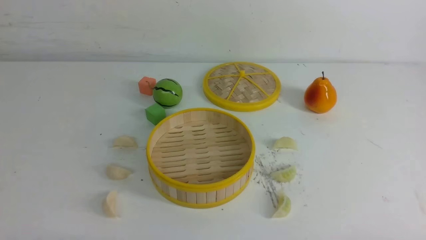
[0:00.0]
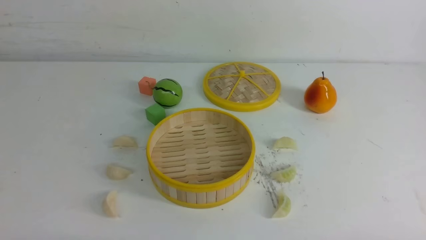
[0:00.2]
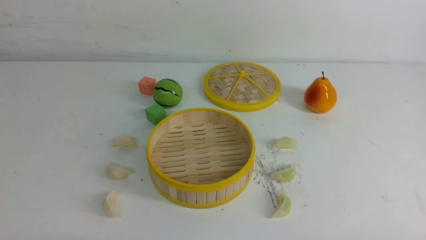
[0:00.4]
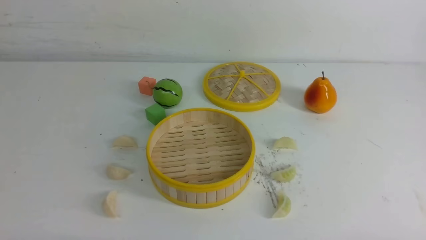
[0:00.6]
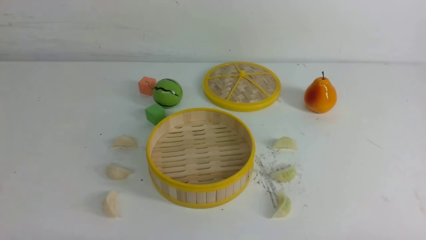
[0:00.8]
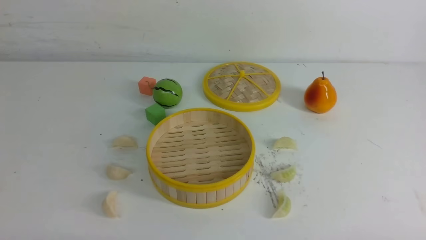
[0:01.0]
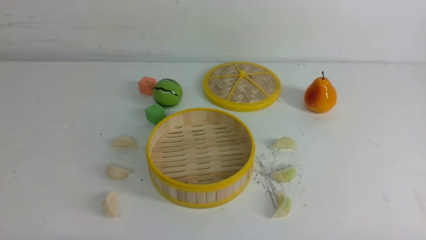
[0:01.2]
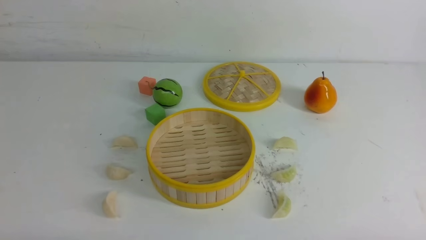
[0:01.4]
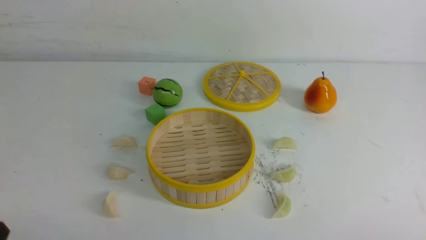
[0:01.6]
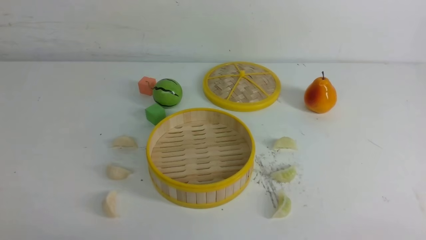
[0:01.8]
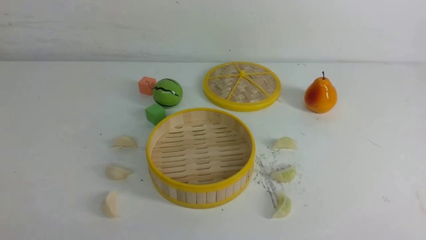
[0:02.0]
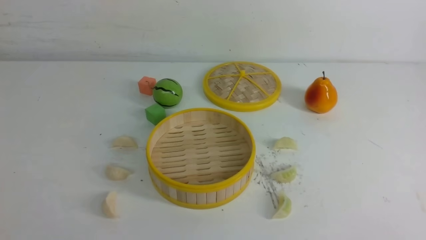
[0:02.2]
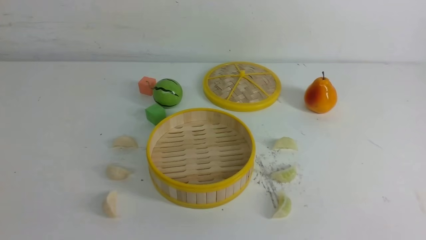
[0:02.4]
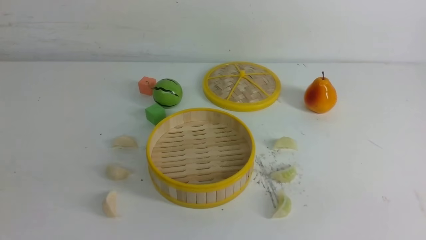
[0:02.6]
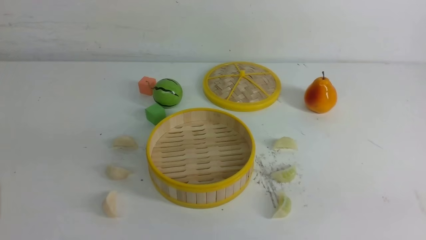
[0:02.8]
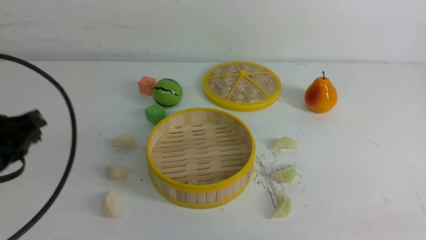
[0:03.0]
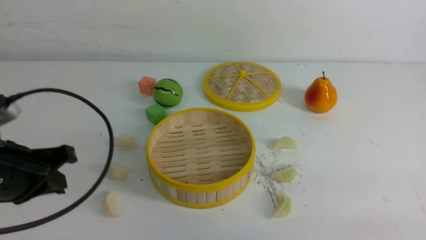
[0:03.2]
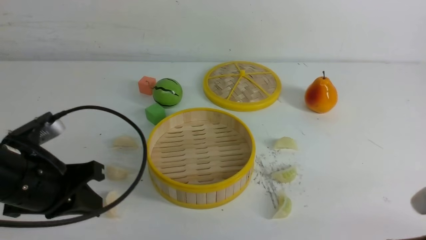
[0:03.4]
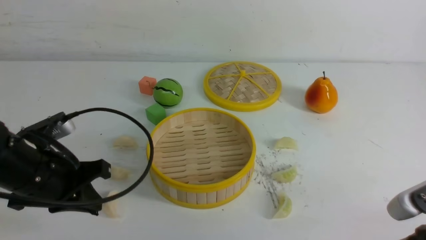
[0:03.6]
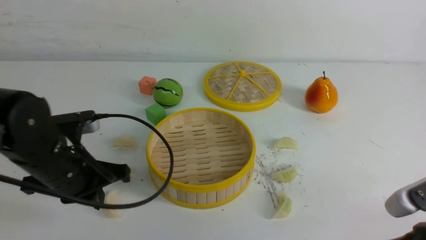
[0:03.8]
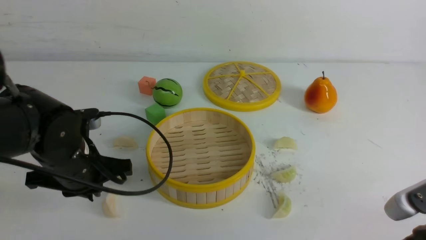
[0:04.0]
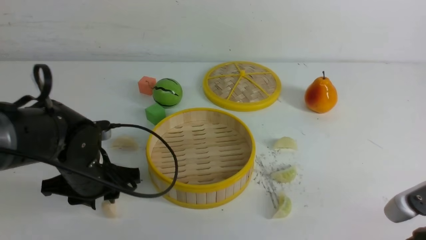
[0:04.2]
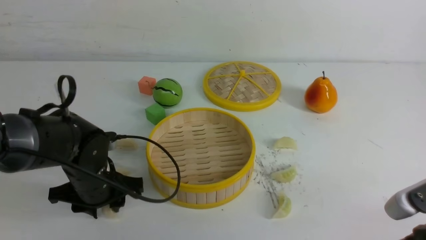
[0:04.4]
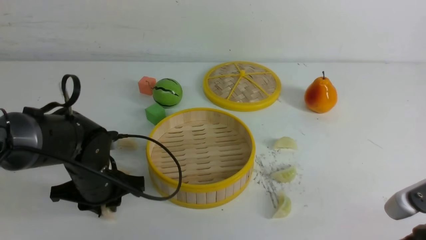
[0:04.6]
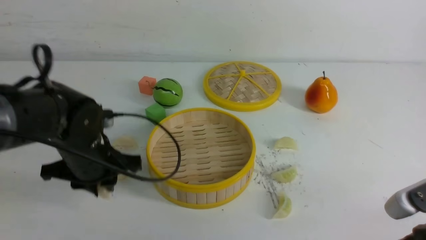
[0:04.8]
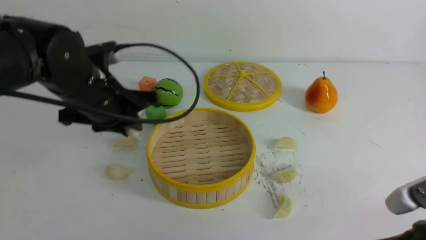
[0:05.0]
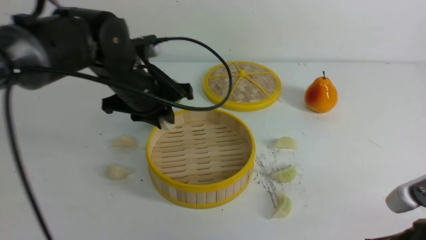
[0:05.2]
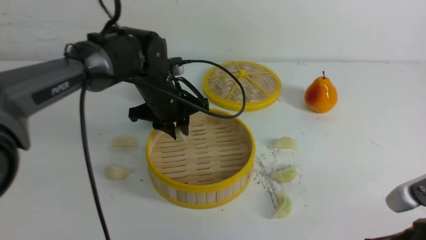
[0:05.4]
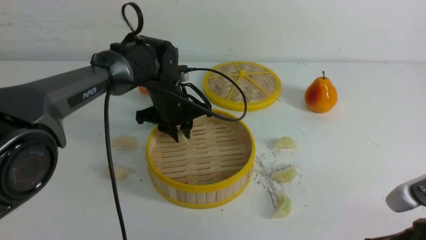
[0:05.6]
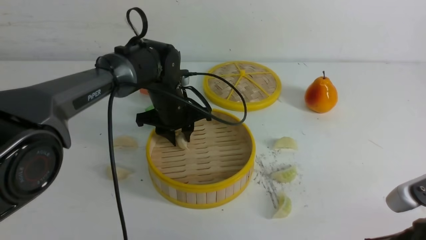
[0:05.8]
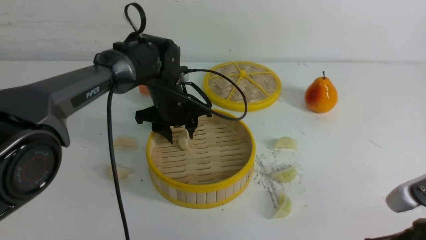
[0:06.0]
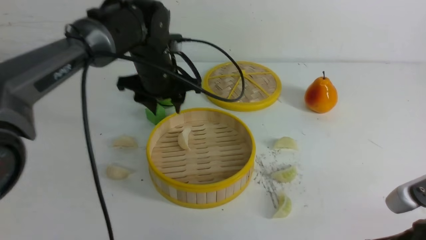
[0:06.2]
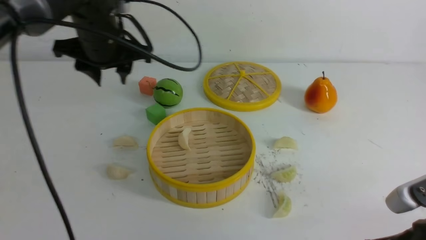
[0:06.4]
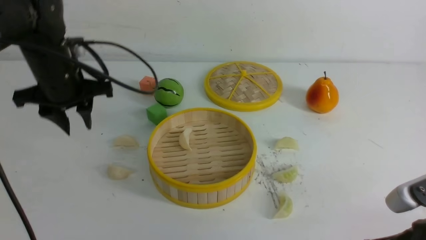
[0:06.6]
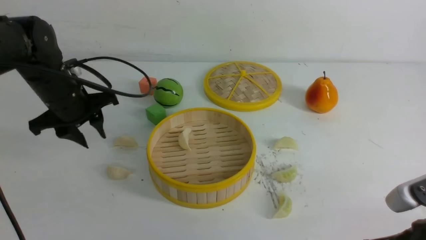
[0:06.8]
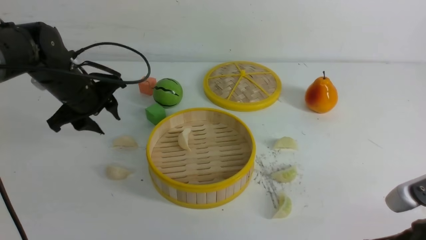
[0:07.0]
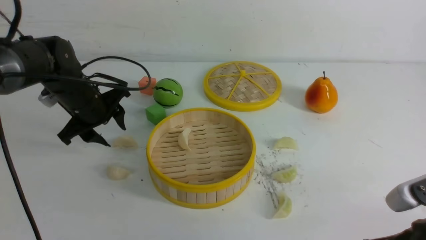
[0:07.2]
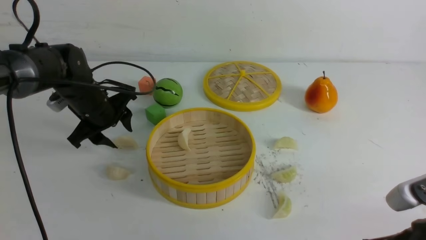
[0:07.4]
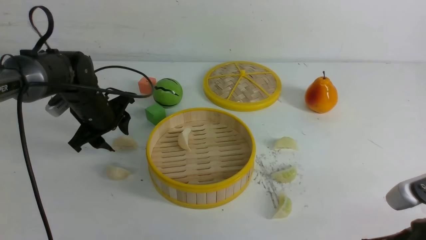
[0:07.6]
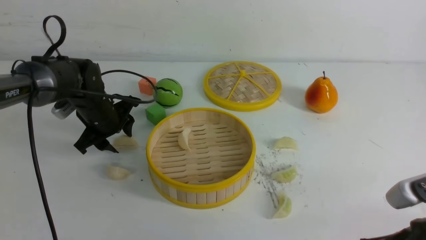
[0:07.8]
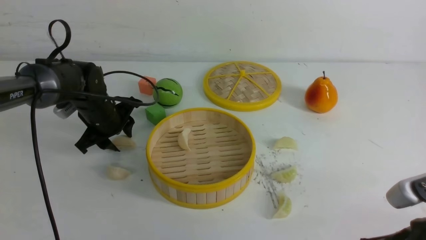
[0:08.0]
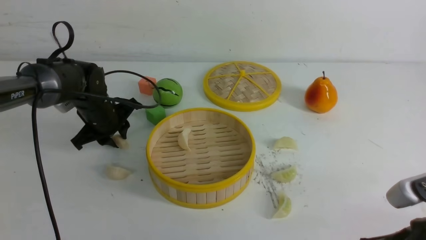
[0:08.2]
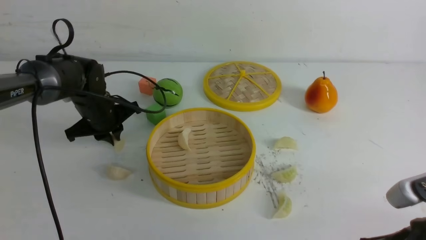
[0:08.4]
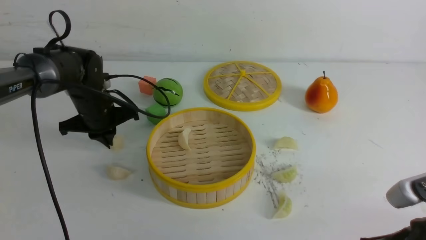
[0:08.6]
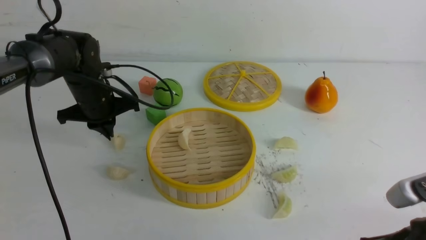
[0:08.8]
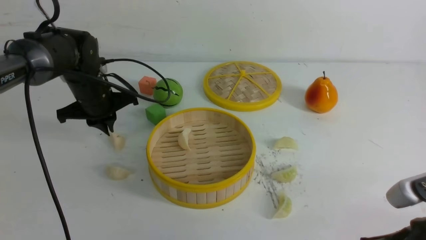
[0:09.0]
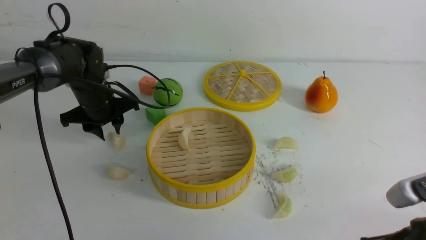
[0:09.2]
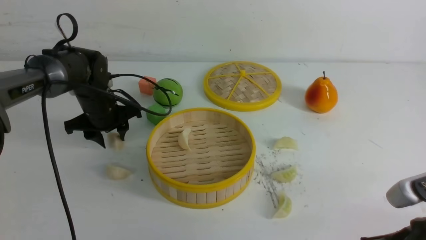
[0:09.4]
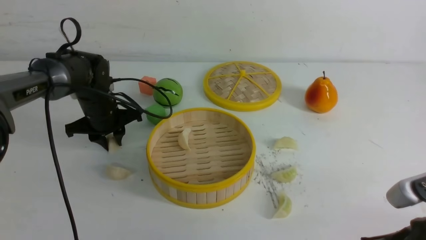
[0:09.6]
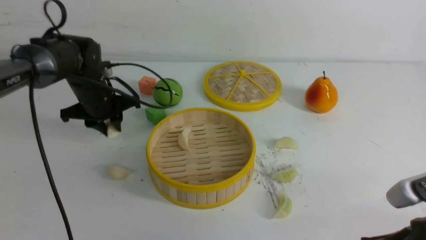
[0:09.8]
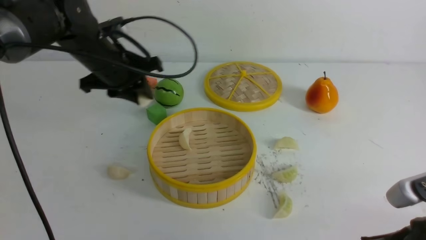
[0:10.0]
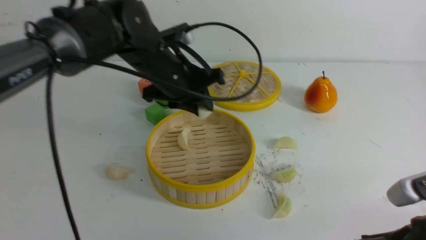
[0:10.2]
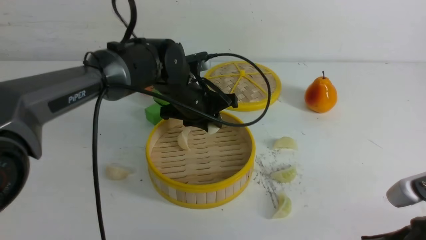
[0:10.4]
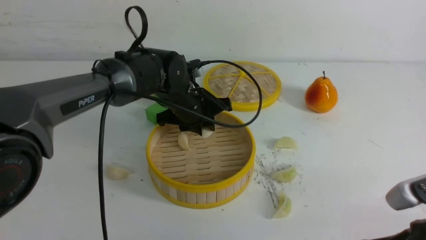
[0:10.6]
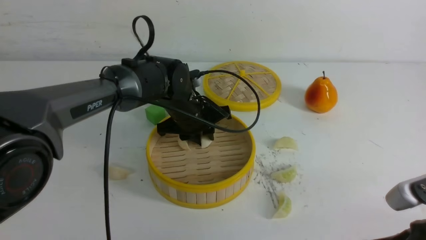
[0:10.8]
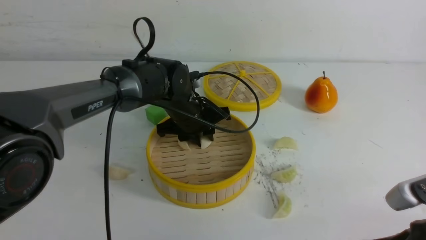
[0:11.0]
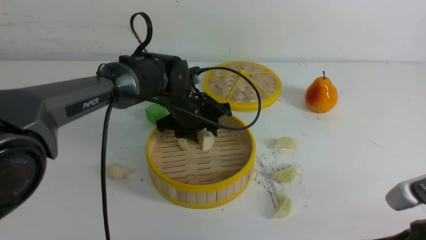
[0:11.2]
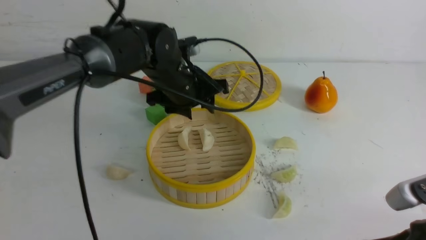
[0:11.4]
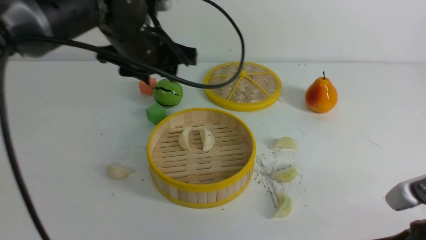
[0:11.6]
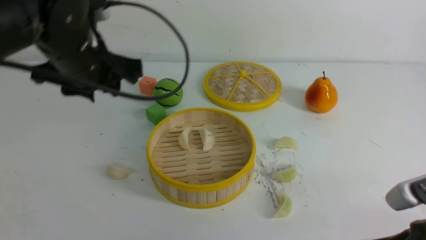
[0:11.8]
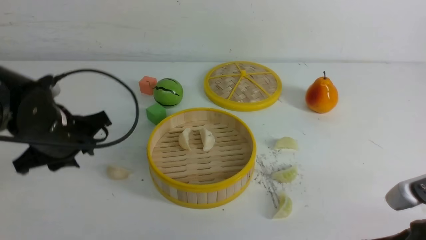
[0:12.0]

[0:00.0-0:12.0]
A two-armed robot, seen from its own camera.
Task of the whole recording: put the dumplings into the steamer on the white table.
Step, 0:00.0 to 0:04.6: use the left arm to grab a dumpling.
Step, 0:04.8 to 0:05.8: use the left arm to put the dumpling into the steamer.
Step, 0:06.0 to 0:09.6: use the left arm to grab a dumpling.
Step, 0:09.8 to 0:11.0: use the left arm to put the dumpling into the steamer.
0:01.6 to 0:03.0: The left gripper goes roughly 15 cm forward and upward, and closes.
0:03.0 to 0:04.4: The right gripper travels to the left by about 5 cm, while the left gripper moves downward, forward and to the right, about 20 cm, and opens its fingers.
0:04.4 to 0:06.0: The left gripper goes about 20 cm forward, to the right and upward.
0:06.0 to 0:07.6: The left gripper moves to the left, approximately 15 cm.
0:07.6 to 0:09.0: The left gripper closes.
0:09.0 to 0:10.4: The left gripper goes roughly 15 cm to the right.
0:10.4 to 0:12.0: The left gripper moves to the left and backward, roughly 20 cm.

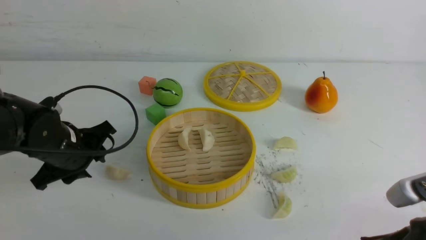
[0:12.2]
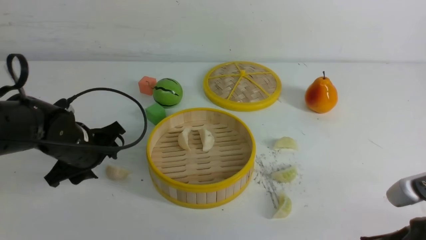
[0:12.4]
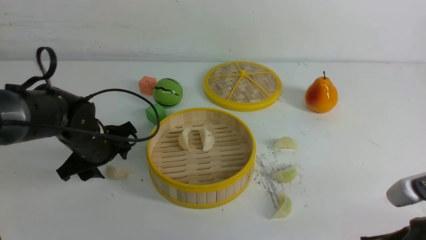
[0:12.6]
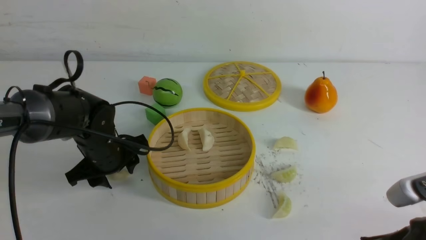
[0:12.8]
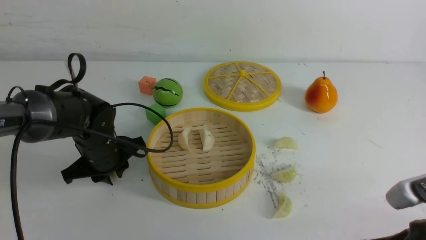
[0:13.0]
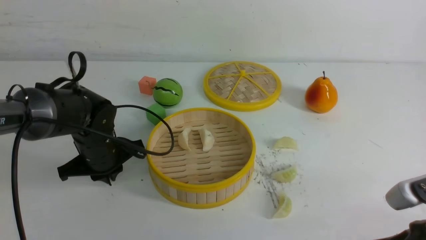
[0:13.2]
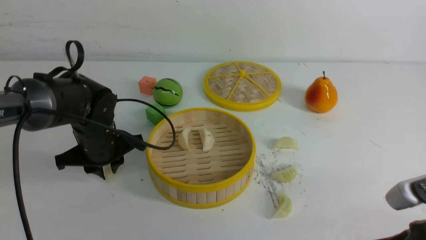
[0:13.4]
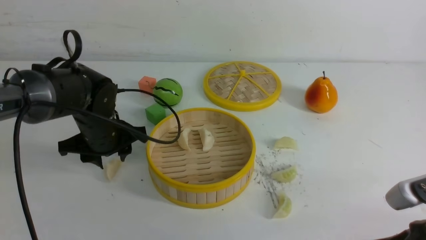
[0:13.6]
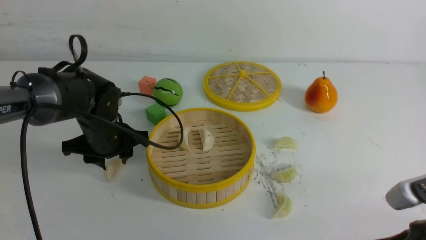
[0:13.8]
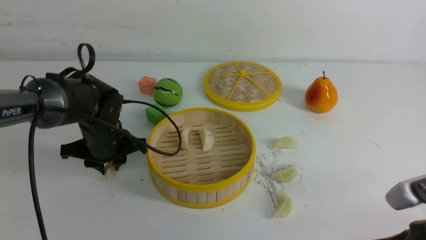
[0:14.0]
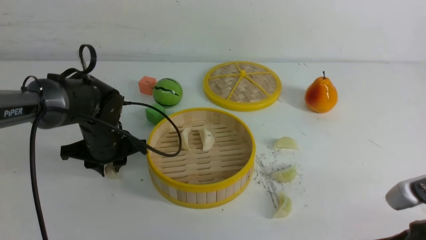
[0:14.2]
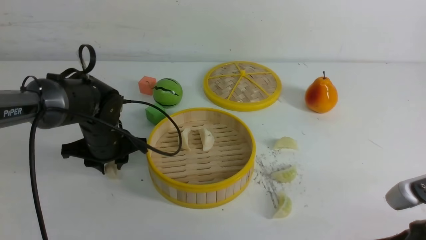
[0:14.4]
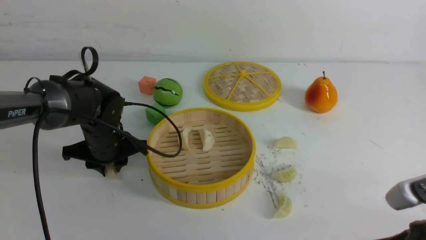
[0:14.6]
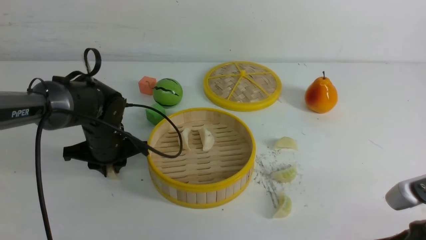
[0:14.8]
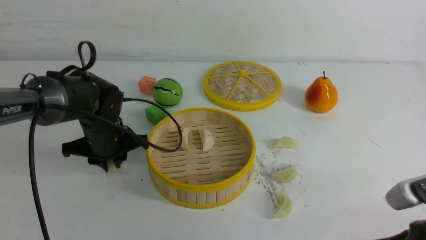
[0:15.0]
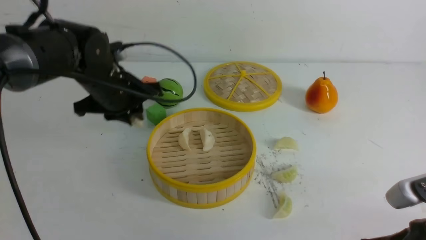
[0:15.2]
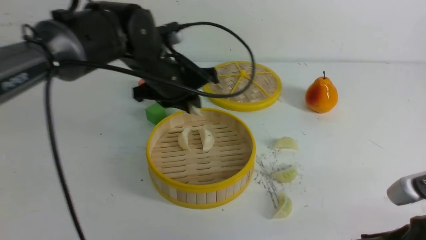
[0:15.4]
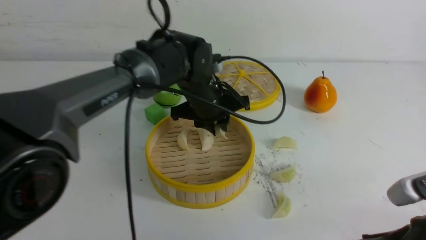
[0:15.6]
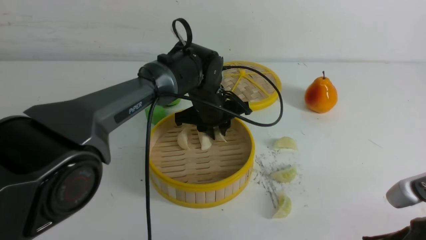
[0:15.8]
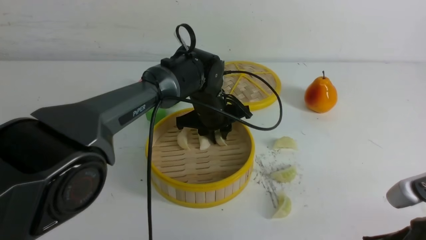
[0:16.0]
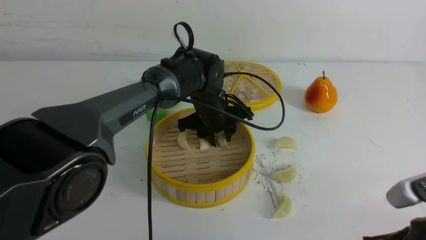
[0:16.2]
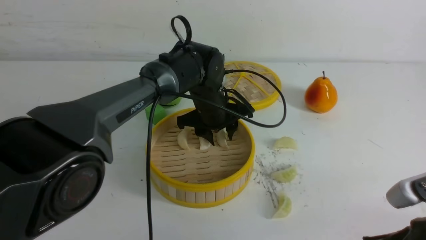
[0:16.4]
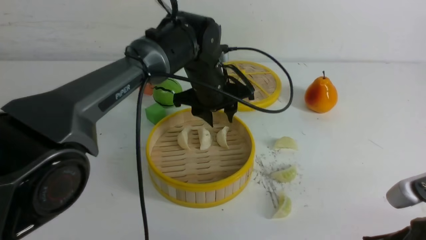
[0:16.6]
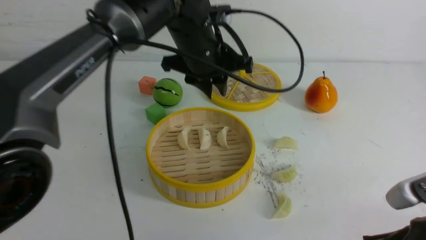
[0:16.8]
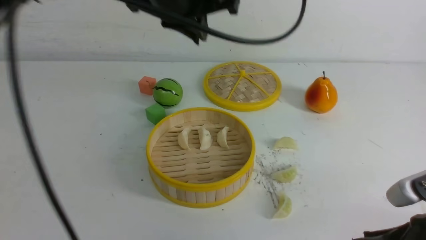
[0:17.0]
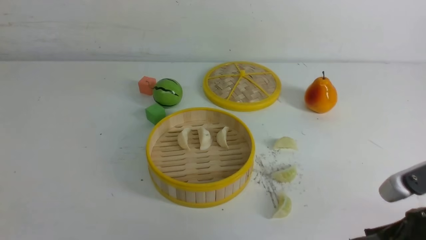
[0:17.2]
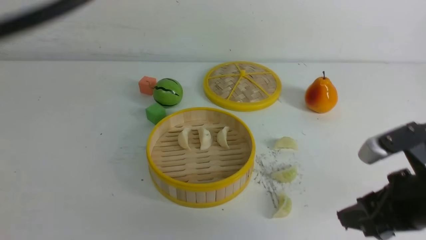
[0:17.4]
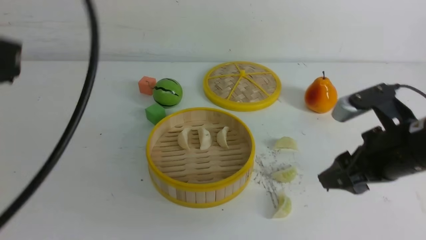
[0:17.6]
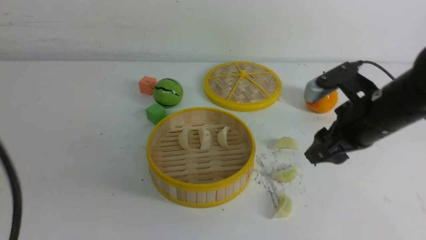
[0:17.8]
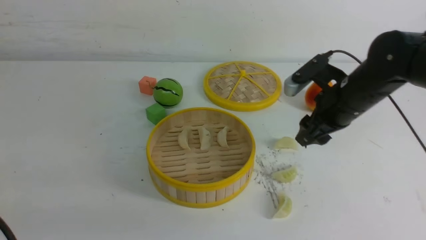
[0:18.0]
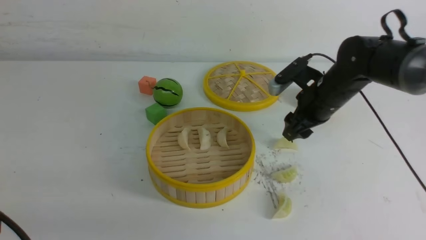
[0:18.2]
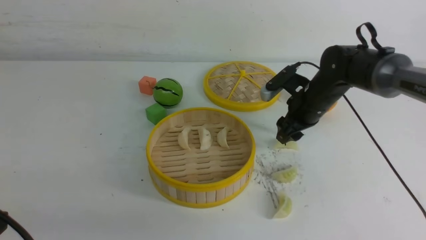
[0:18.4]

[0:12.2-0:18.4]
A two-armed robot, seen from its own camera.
Task of the whole recording: put the dumplings into the steamer on the white table.
Step, 0:12.2 to 0:14.8: use the left arm to grab a dumpling.
Step, 0:15.2 to 0:16.4: use the left arm to put the dumpling into the steamer.
0:12.2 to 0:13.8: The left gripper heads forward, covering approximately 5 cm, and closes and opens again.
0:13.8 to 0:15.4: The left gripper shifts roughly 15 cm to the right and upward.
0:15.4 to 0:16.8: The left gripper shifts about 10 cm upward.
0:16.8 to 0:18.4: The right gripper travels forward by roughly 30 cm, and opens. Meanwhile the left gripper shifts some 40 cm backward and to the left, and closes its fingers.
